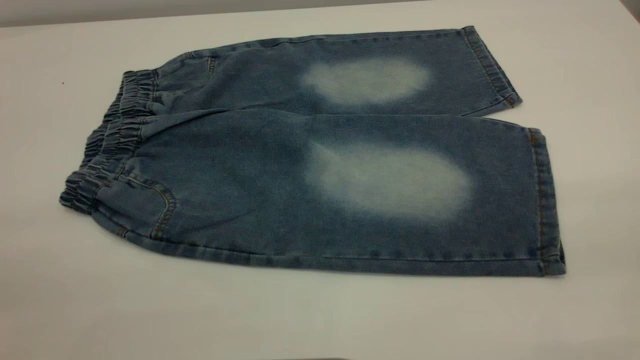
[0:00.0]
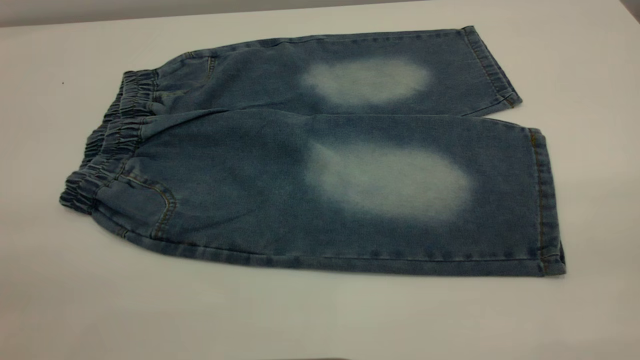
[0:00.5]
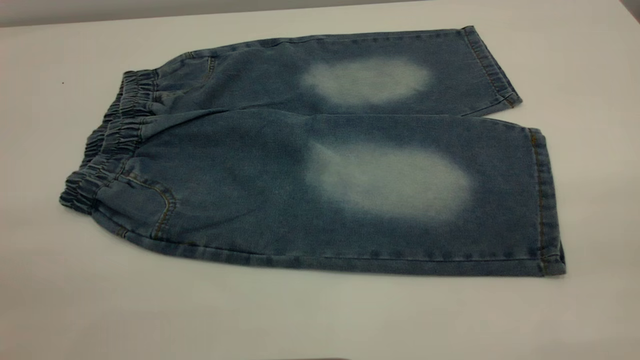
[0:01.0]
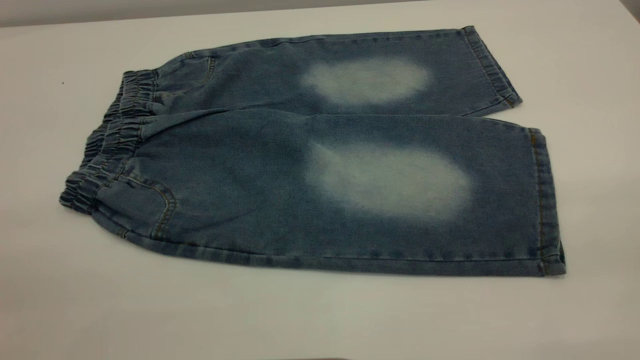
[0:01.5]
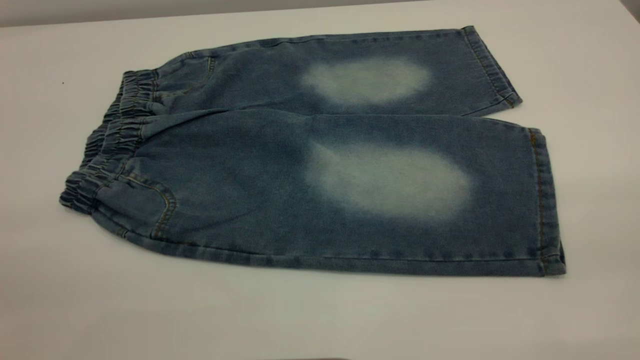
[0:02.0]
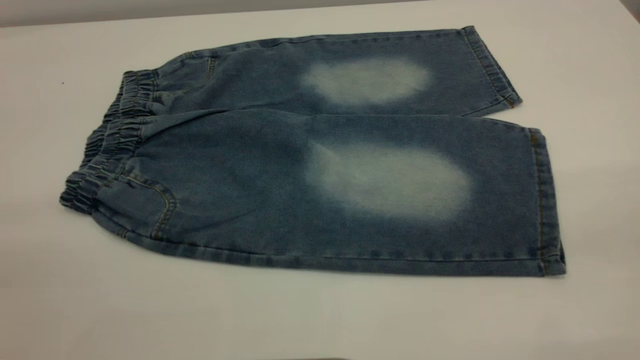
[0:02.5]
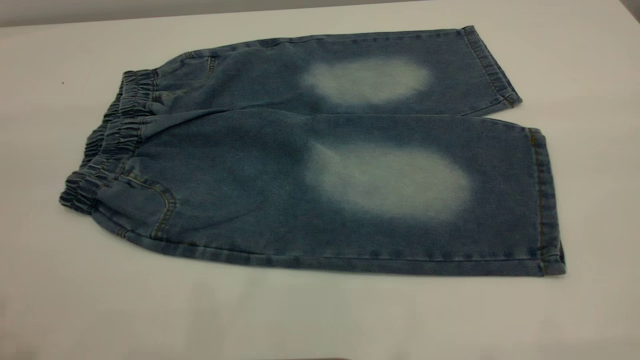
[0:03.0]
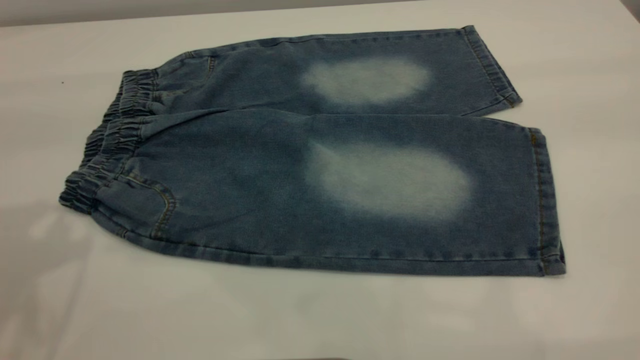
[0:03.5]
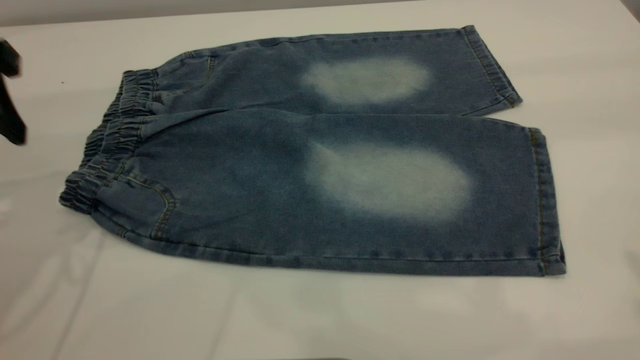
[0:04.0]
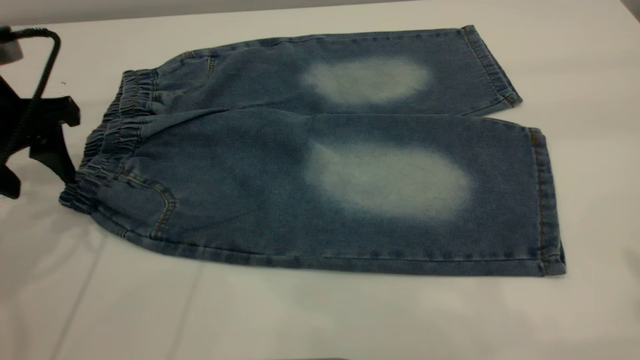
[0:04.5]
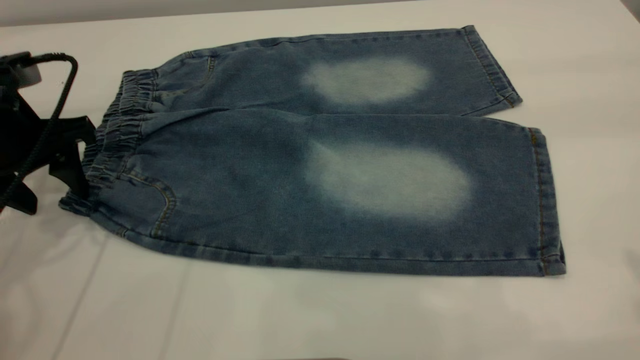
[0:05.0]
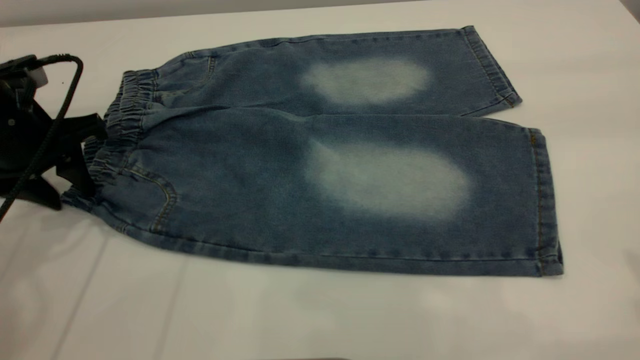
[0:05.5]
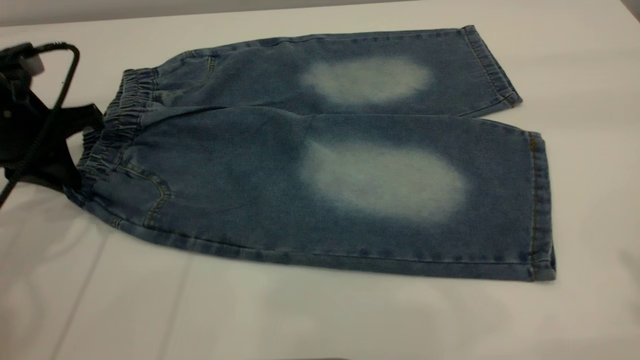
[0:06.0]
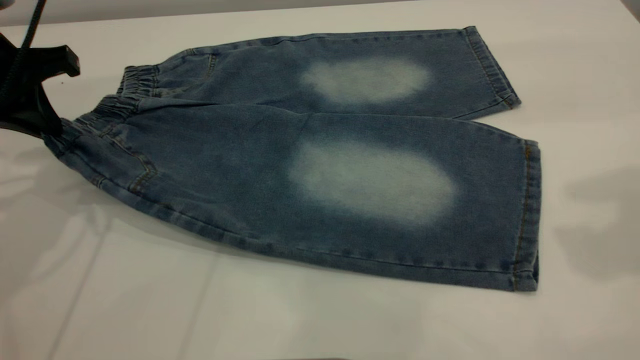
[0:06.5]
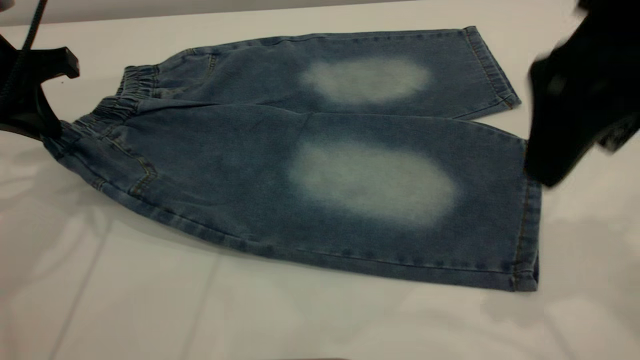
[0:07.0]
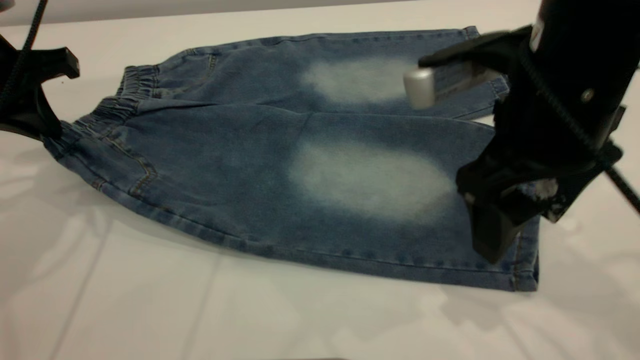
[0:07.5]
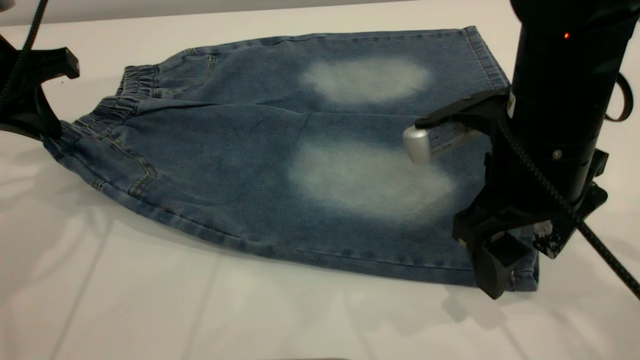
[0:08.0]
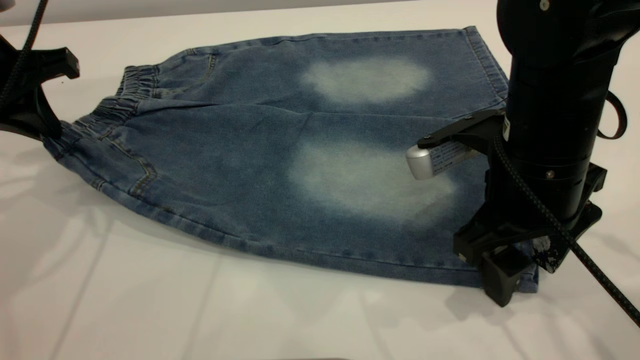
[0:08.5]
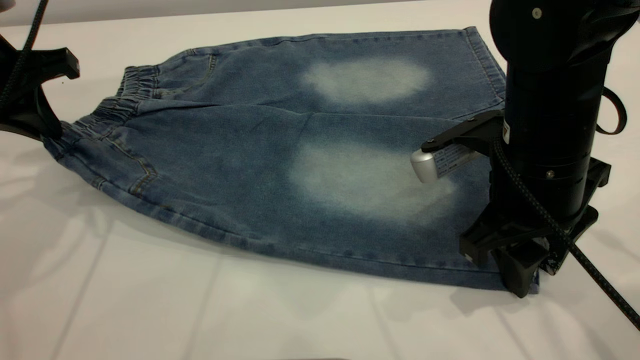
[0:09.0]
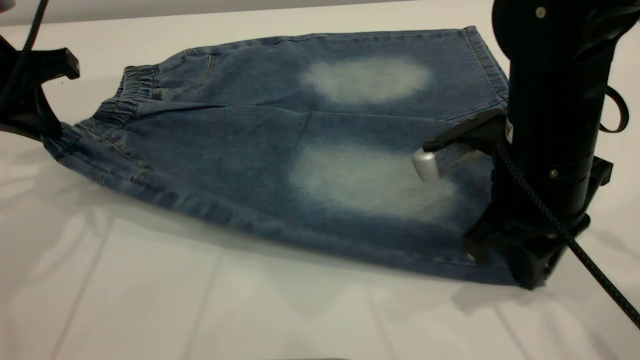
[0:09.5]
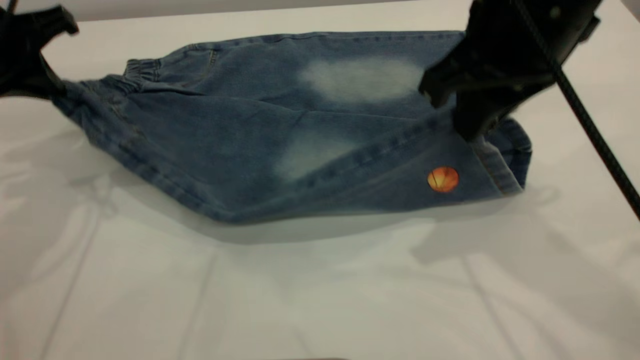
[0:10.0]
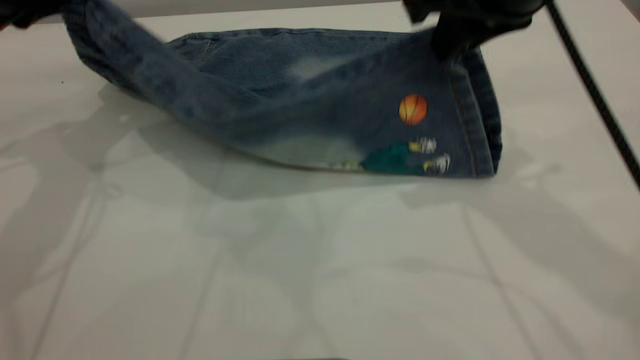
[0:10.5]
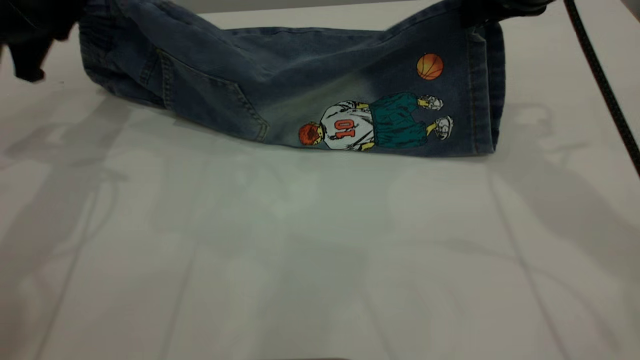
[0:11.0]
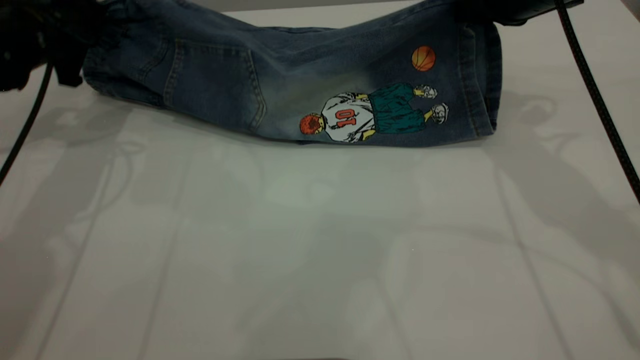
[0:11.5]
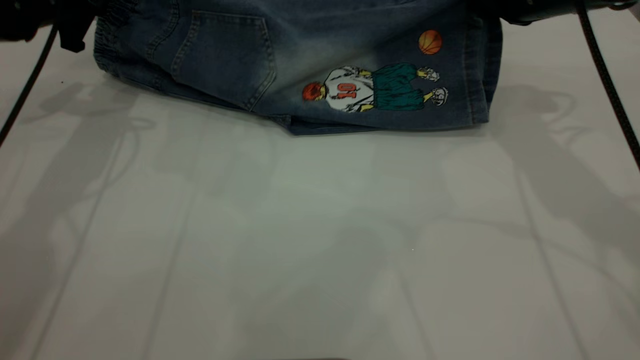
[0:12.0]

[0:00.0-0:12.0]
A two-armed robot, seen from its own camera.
0:00.0 to 0:02.0: Both grippers stay put.
0:02.0 to 0:04.0: The left gripper is displaced forward by about 30 cm.
0:04.0 to 0:06.0: The left gripper is displaced downward by roughly 10 cm, and closes.
0:06.0 to 0:08.0: The right gripper shifts roughly 30 cm downward and to the left.
0:08.0 to 0:10.0: The right gripper is displaced upward by some 10 cm, and closes its fingers.
0:10.0 to 0:12.0: The right gripper travels forward, to the right and downward by some 15 cm. The left gripper shifts approximately 10 cm forward.

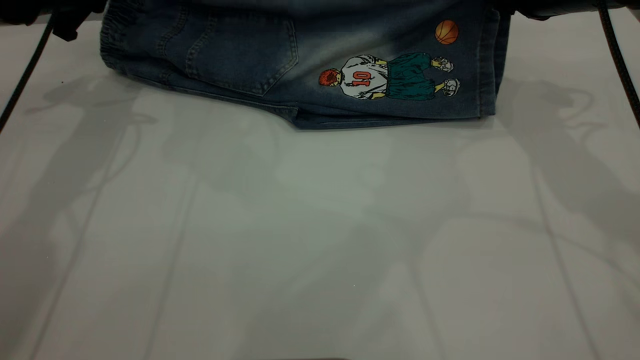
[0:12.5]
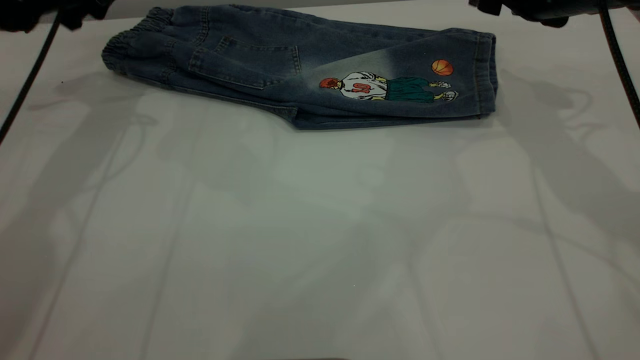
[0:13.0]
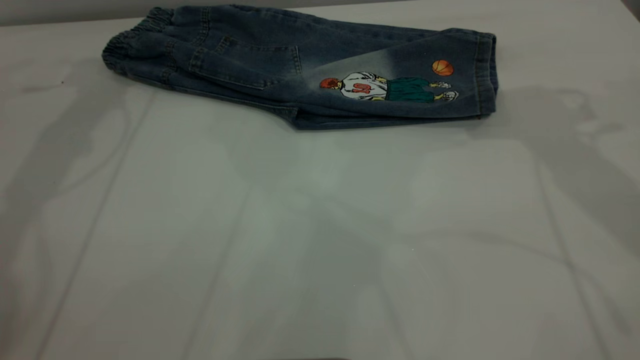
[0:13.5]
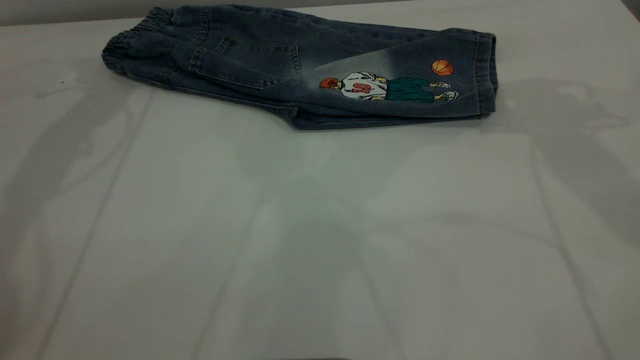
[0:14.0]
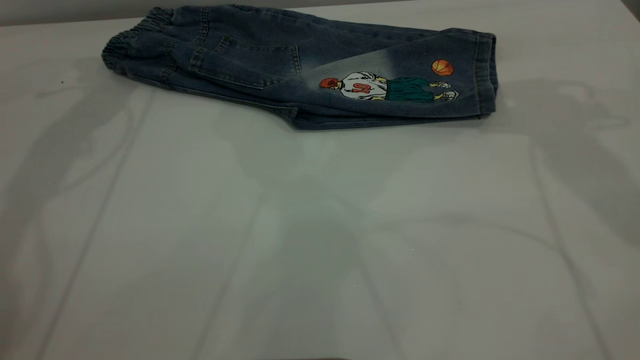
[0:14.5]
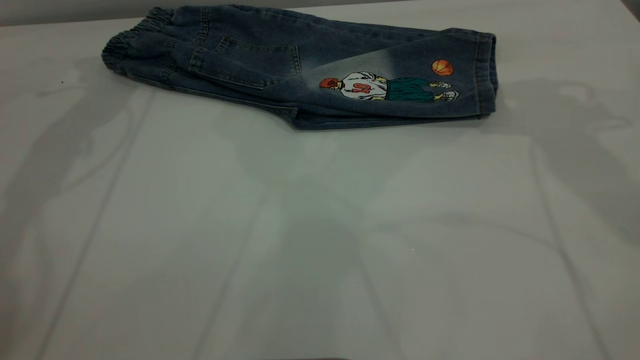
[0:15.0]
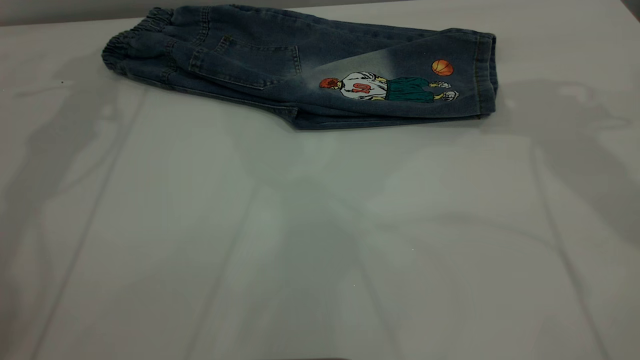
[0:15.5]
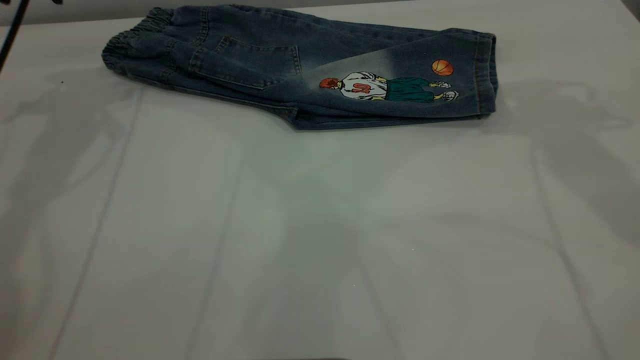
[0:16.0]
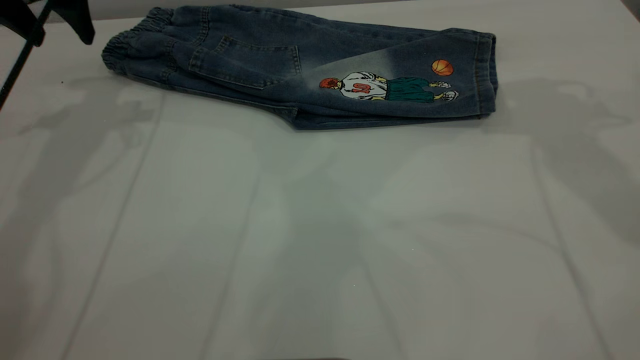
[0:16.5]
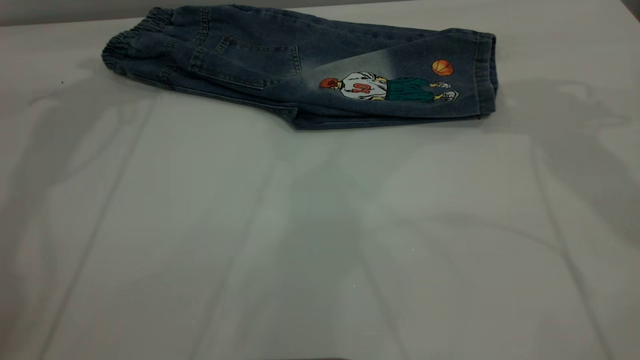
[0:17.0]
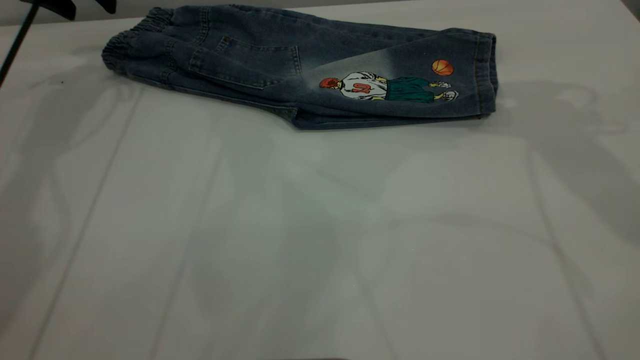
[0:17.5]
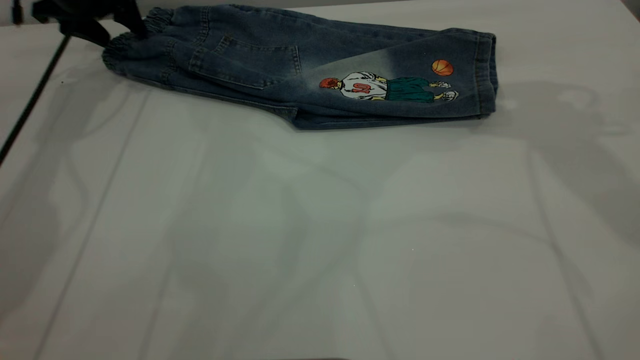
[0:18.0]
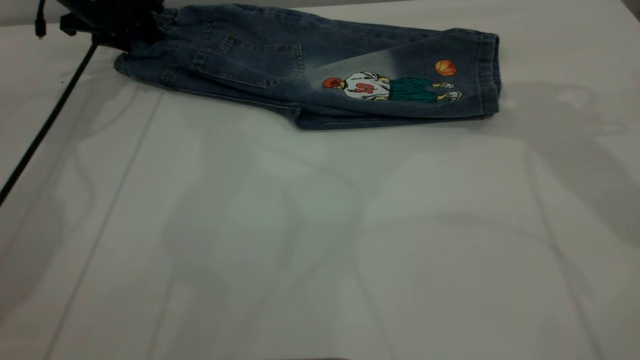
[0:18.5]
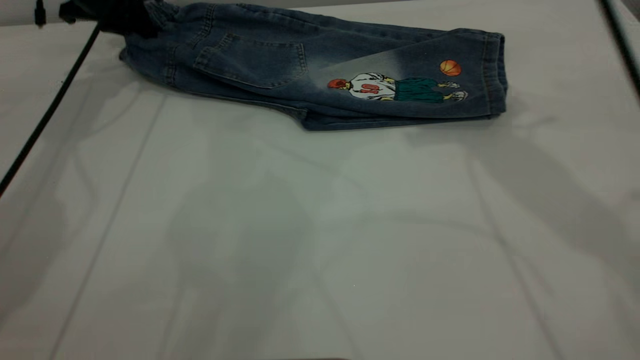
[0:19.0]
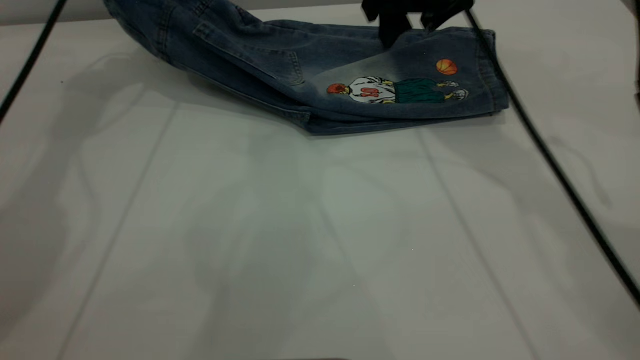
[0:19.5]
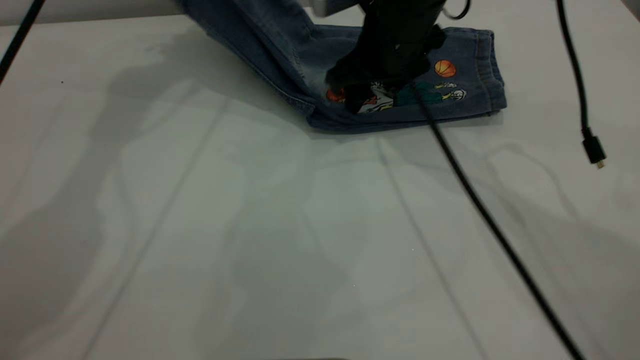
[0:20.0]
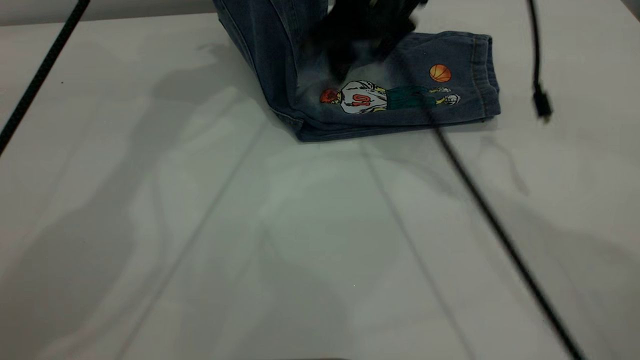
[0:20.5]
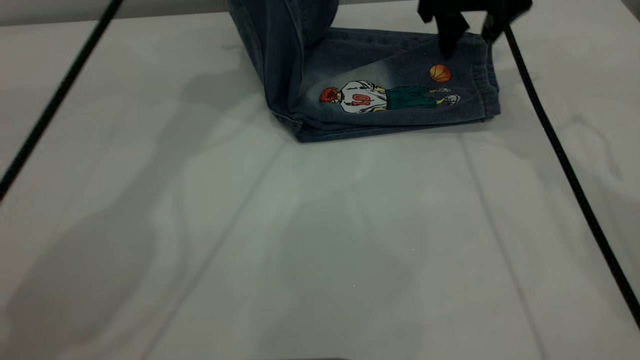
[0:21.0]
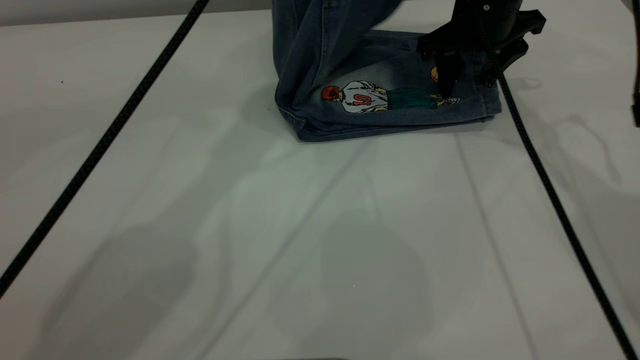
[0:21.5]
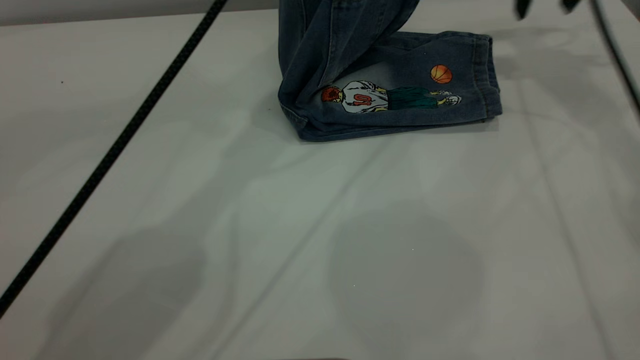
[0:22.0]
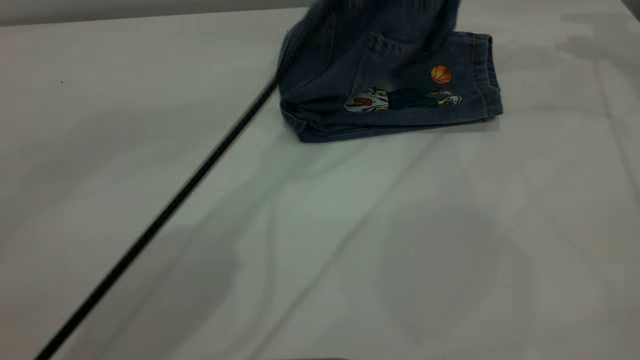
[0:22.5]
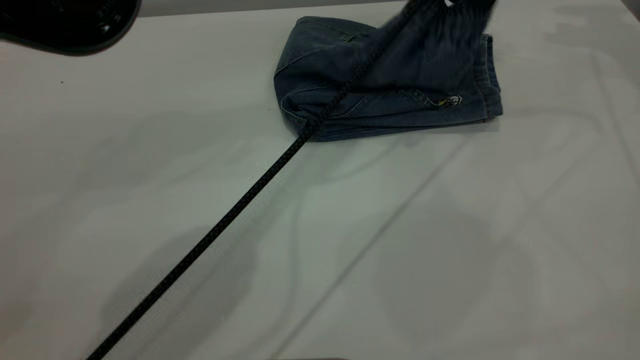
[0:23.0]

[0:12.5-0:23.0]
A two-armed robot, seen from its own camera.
0:12.5 to 0:14.5: Both grippers move upward, approximately 10 cm. The left gripper opens up, while the right gripper opens up.
0:16.5 to 0:19.0: The right gripper shifts some 10 cm to the left; the left gripper is displaced forward and downward by roughly 15 cm, and closes its fingers.
0:19.0 to 0:21.0: The left gripper heads to the right and upward, covering roughly 25 cm. Meanwhile the right gripper travels forward and downward by some 10 cm.
0:21.0 to 0:23.0: The left gripper moves to the right and downward, some 20 cm, and opens its fingers. Meanwhile the right gripper heads to the right and upward, covering roughly 25 cm.
